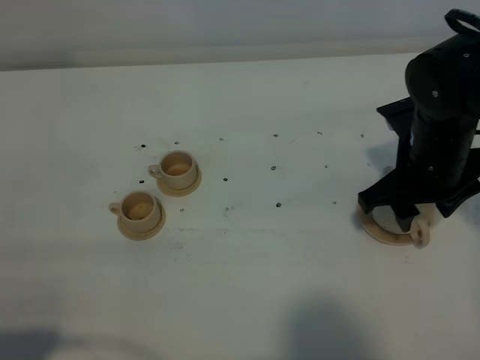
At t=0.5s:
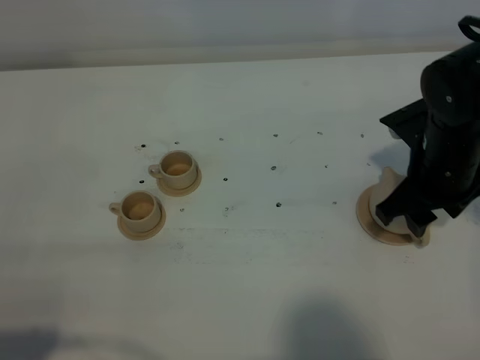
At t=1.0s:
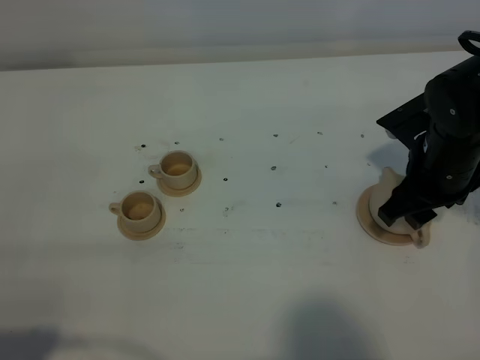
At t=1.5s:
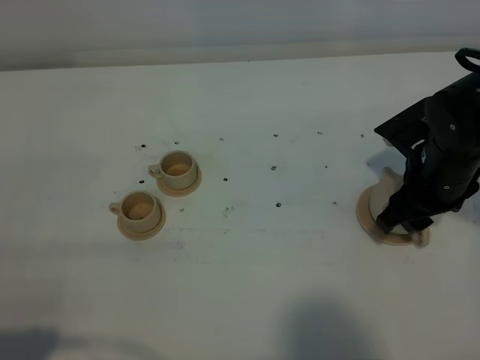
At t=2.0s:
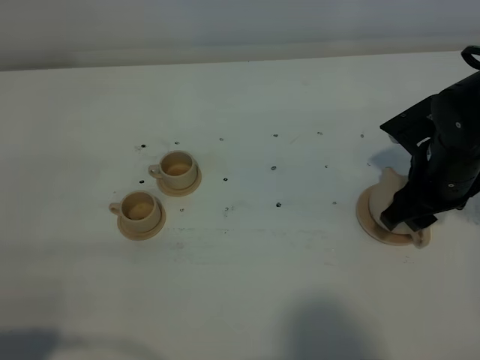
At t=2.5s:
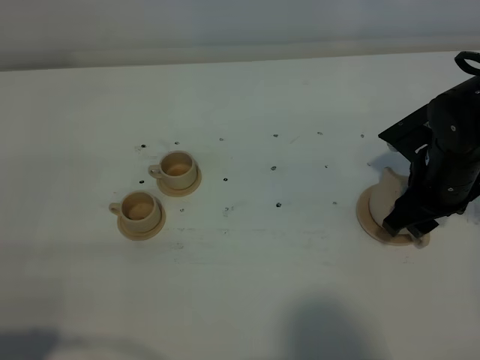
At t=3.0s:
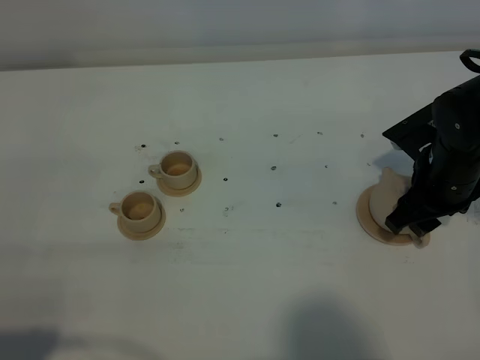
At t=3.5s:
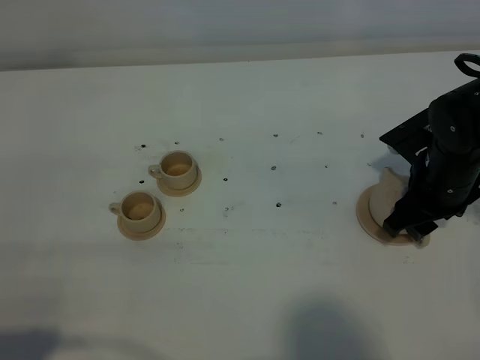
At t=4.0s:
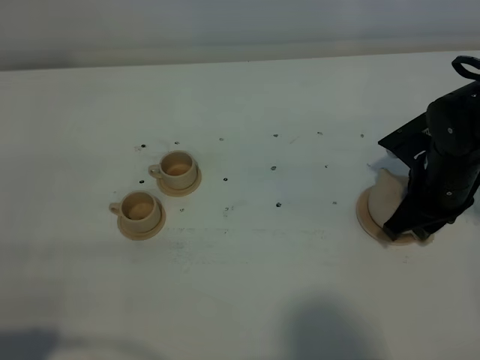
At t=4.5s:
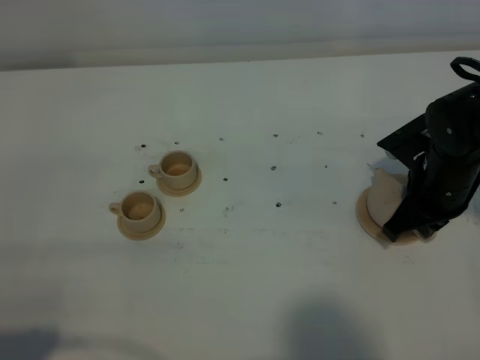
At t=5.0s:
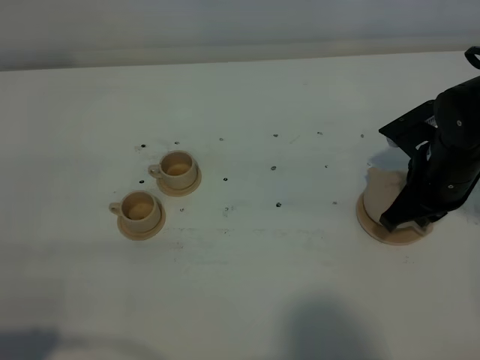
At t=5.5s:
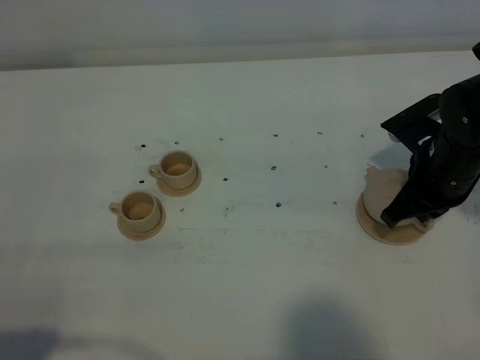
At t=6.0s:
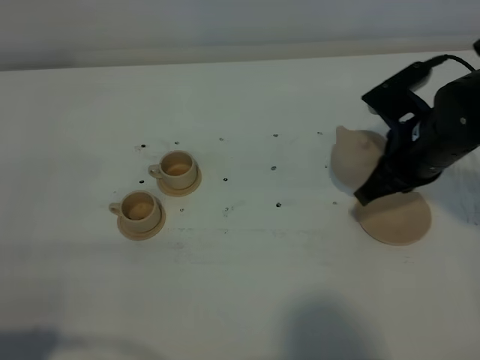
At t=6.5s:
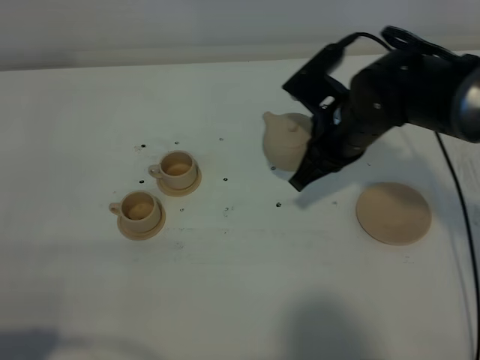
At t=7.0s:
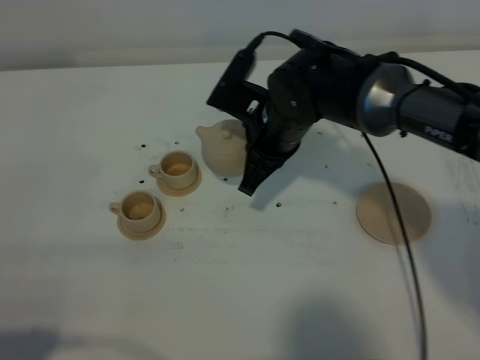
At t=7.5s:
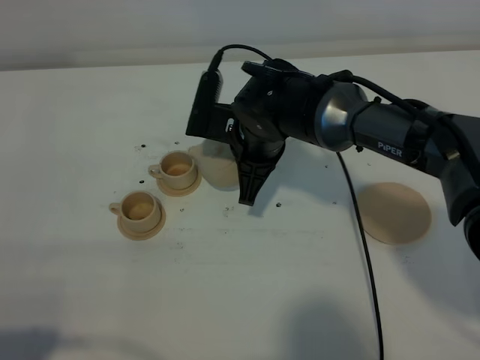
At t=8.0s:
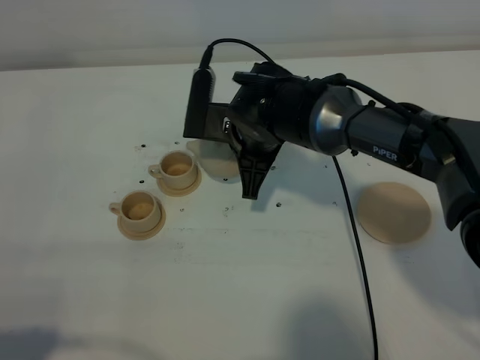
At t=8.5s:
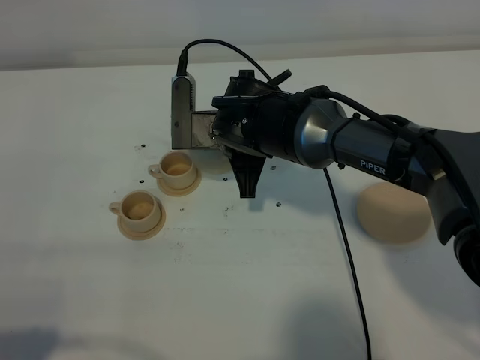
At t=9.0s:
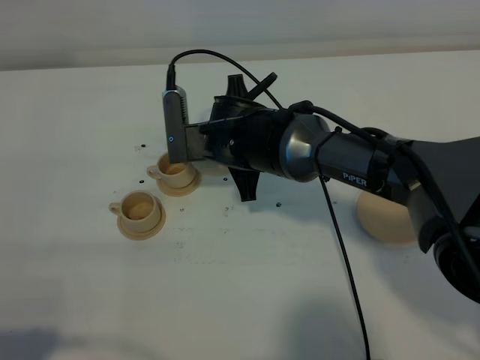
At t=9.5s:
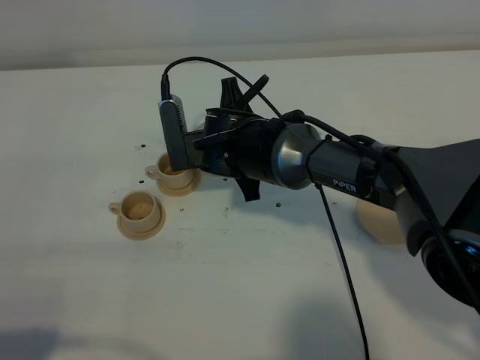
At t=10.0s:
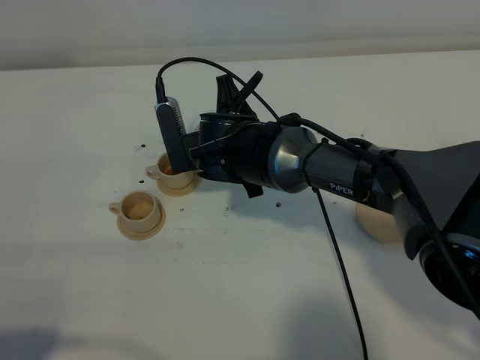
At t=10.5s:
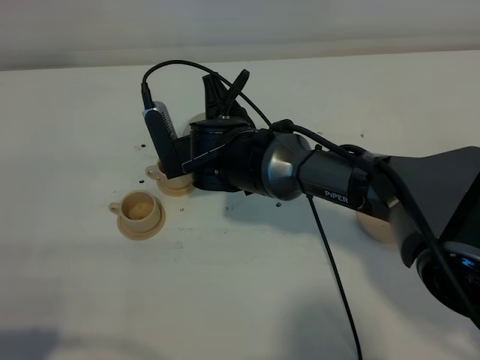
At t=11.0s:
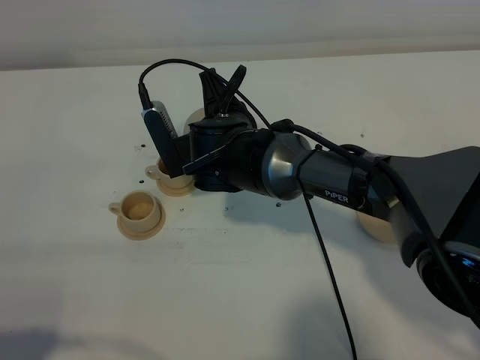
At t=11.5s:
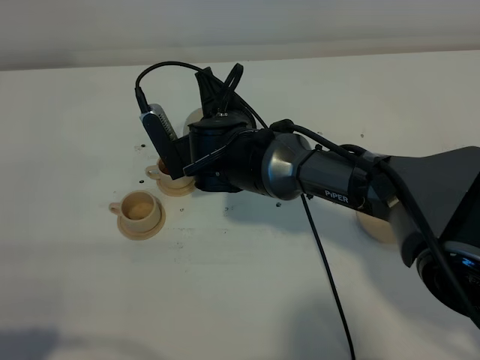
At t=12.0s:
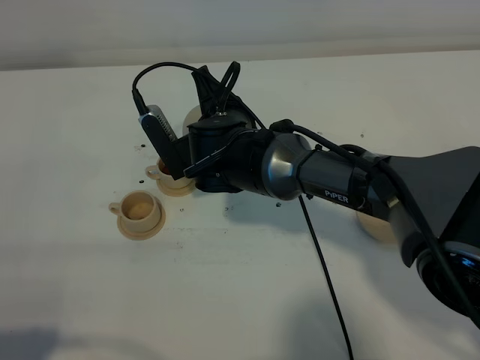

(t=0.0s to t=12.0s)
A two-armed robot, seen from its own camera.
Task of the whole recording: grasp the brown teapot and pour the tea into the two brown teacups one by one, put the brown teapot back in its original place.
Step, t=0.0s - t=5.5s: Pick up the teapot with the right gripper.
t=0.0s - t=2.0s: The grippers make only small movements.
t=2.0s - t=4.0s: The right gripper closes.
t=4.0s - t=6.0s: The right gripper goes approximately 5 cm upward, and closes.
t=6.0s - t=8.0s: The right gripper goes roughly 20 cm to the left.
t=10.0s - t=12.0s: The grippers make only small movements.

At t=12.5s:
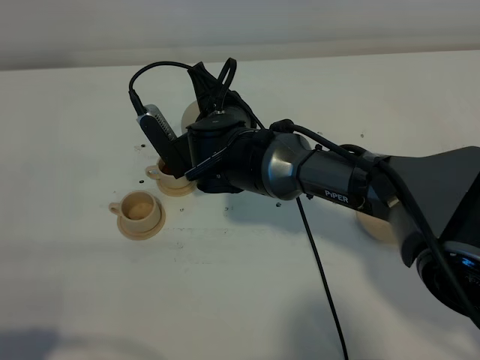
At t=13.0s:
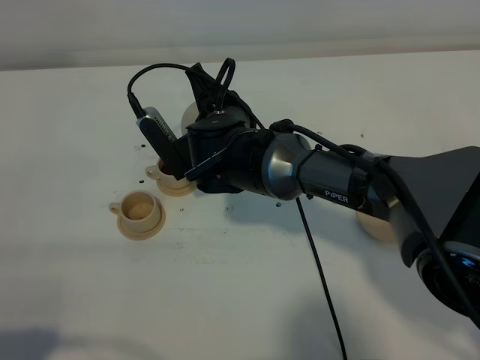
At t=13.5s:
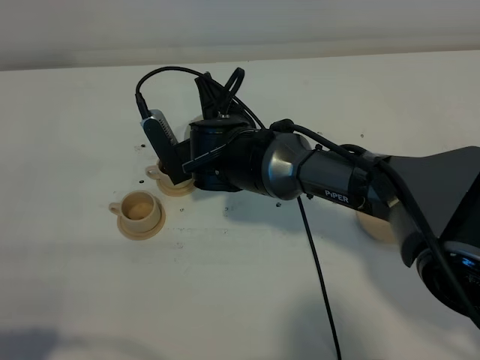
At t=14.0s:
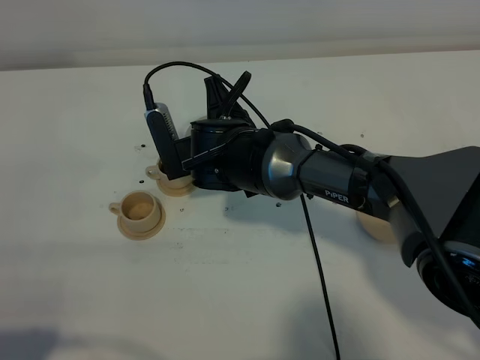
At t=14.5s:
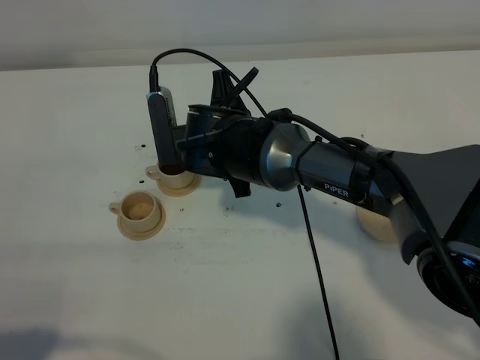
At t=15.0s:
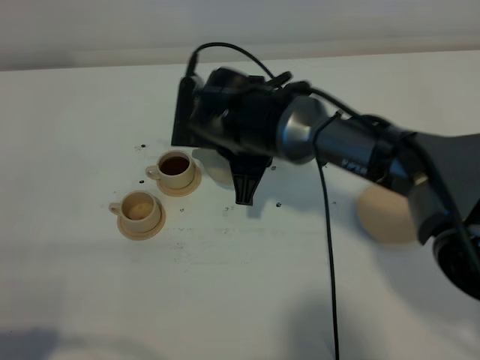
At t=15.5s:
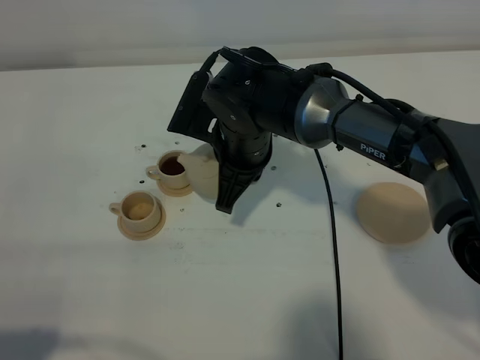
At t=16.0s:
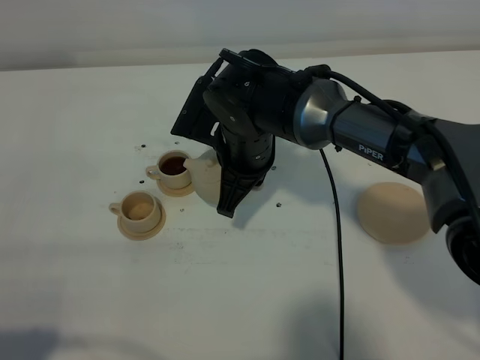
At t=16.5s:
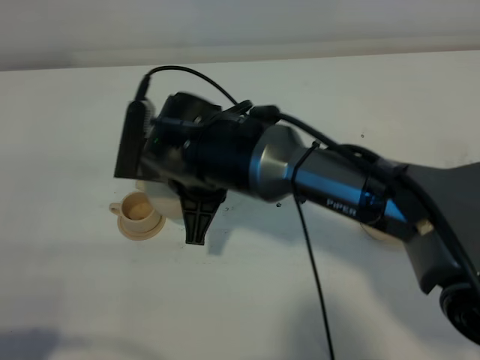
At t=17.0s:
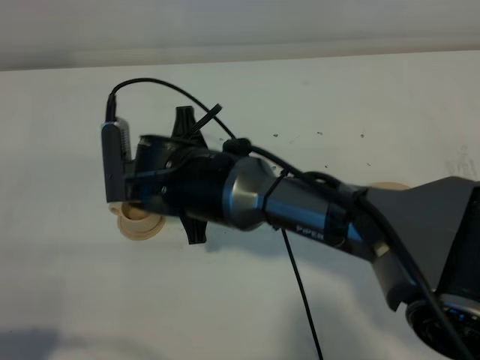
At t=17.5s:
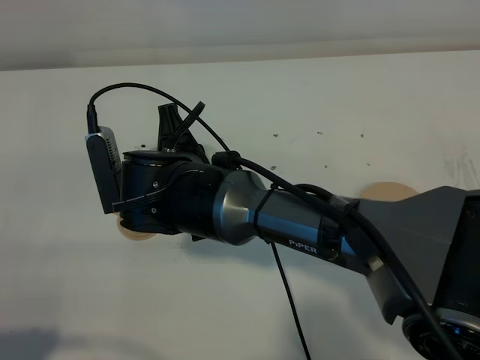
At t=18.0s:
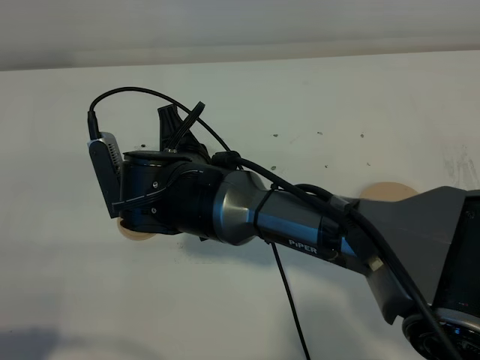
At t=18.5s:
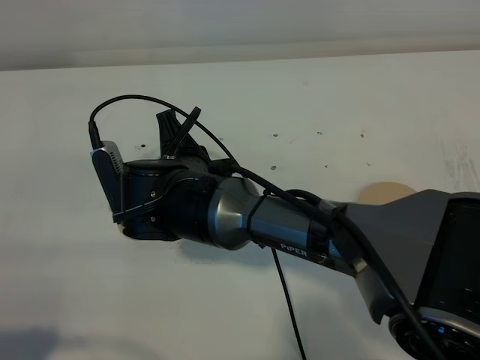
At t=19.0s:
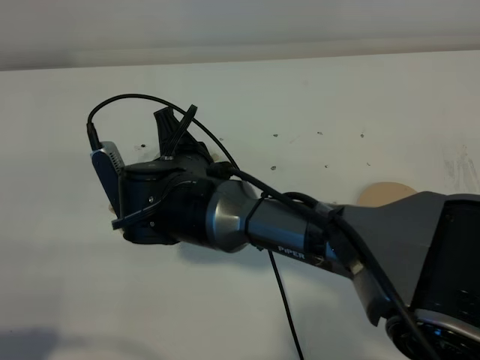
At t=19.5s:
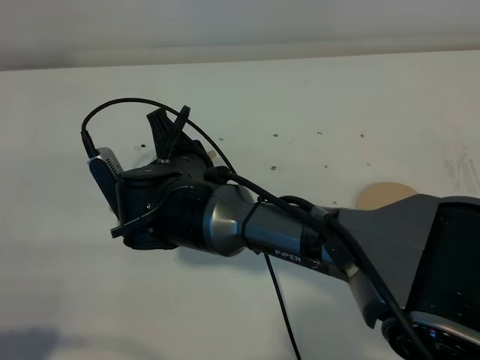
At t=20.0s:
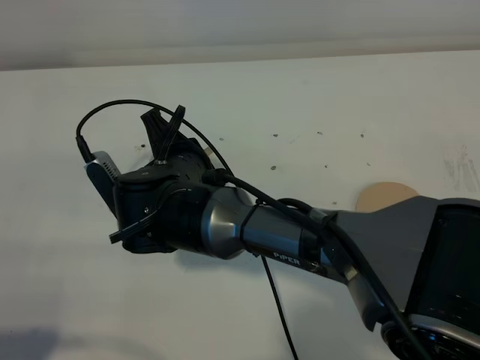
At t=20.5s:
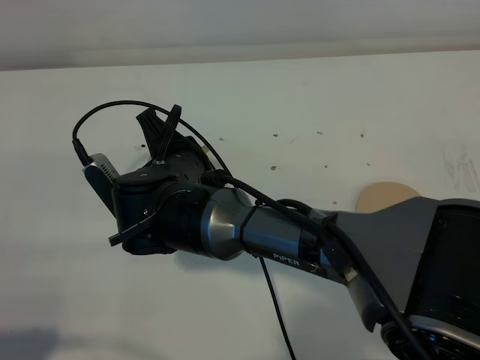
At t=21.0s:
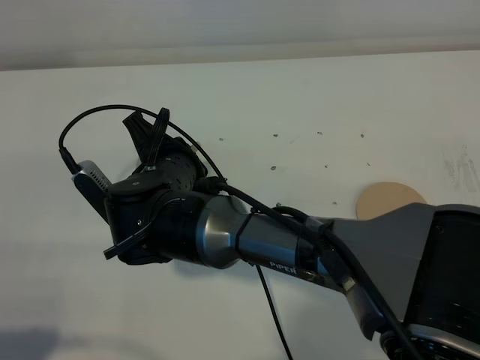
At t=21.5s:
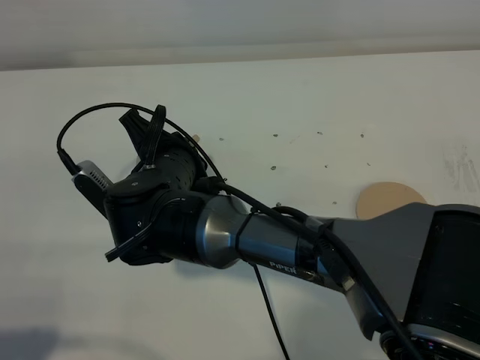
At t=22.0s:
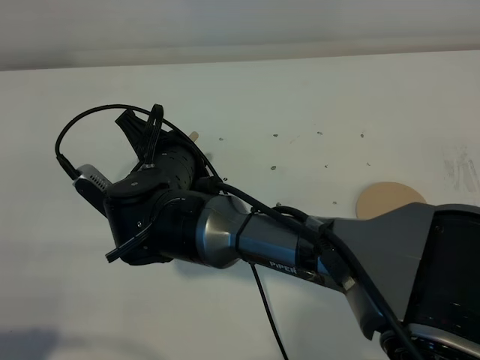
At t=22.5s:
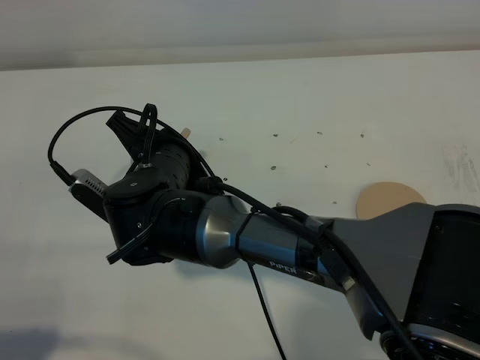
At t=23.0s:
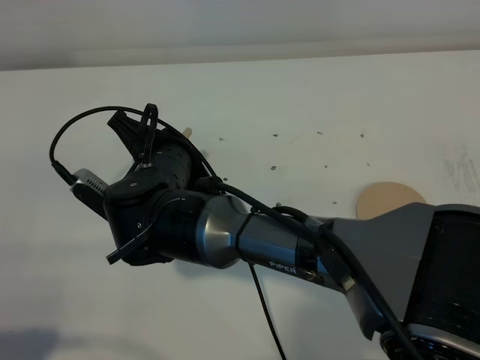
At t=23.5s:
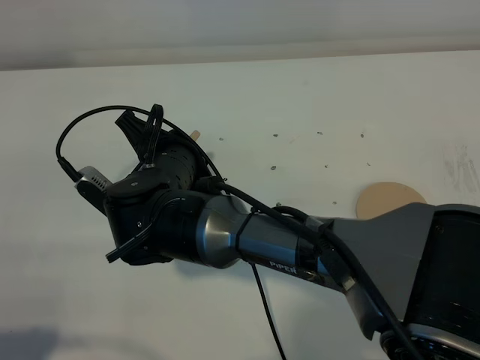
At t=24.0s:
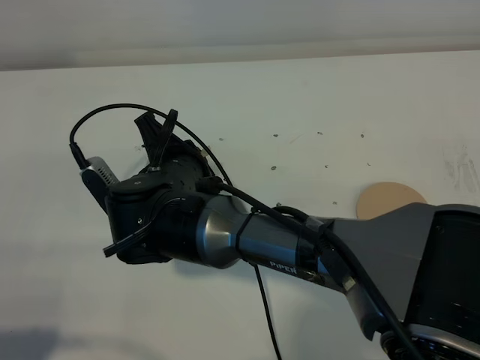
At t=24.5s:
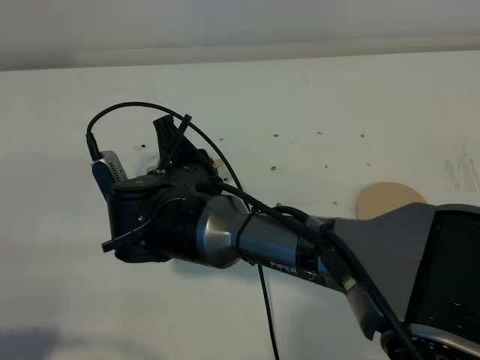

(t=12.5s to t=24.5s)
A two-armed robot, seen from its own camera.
Task of the whole recording: grasp the brown teapot and pour the tea into the two brown teacups one by one, put the brown teapot back in its original place.
Step, t=14.5s - t=24.0s: Pour tea into the teacup with the right gripper.
t=14.5s - t=16.5s: The right gripper shifts some 5 cm backward.
t=18.5s - t=20.5s: The grippers make only small movements.
t=20.5s - t=22.5s: The grippers move only a little.

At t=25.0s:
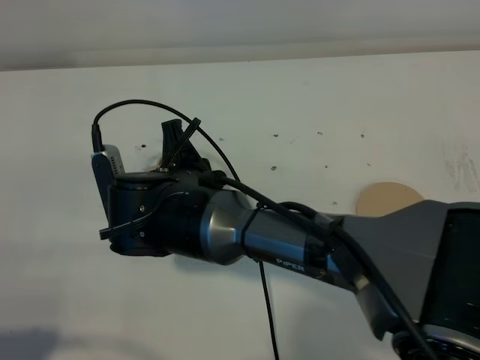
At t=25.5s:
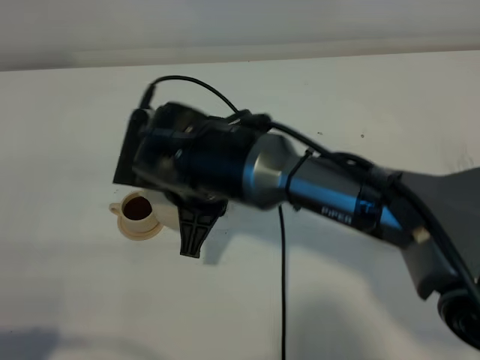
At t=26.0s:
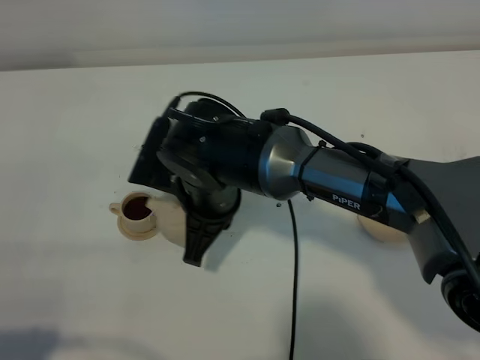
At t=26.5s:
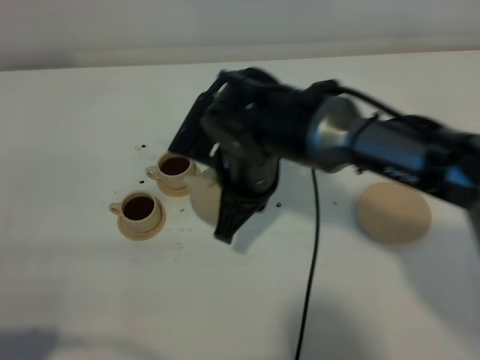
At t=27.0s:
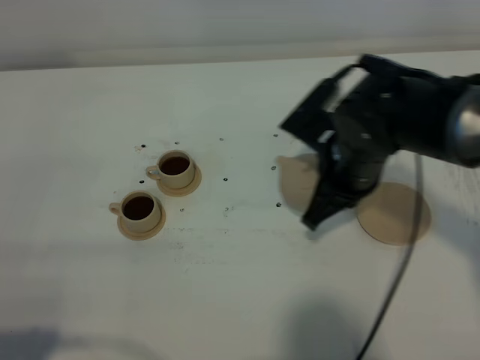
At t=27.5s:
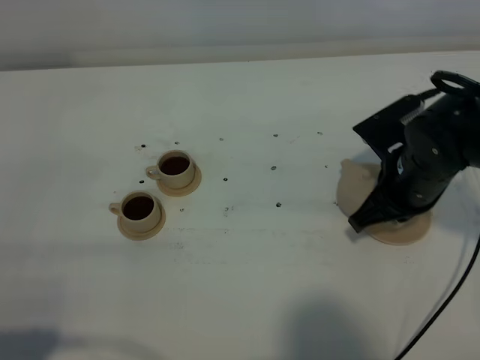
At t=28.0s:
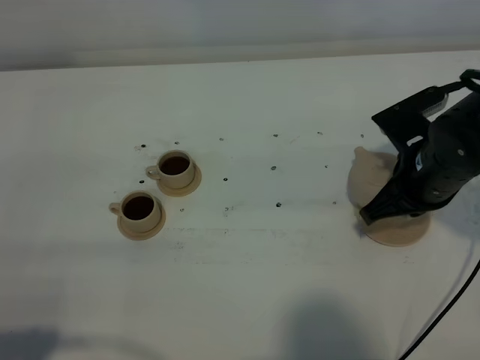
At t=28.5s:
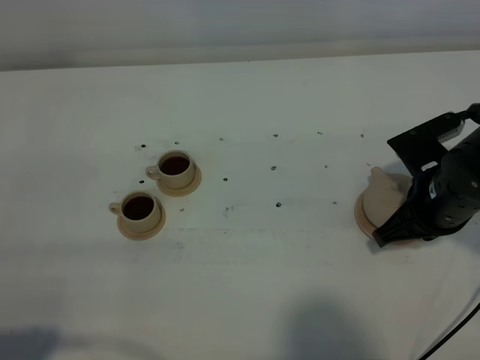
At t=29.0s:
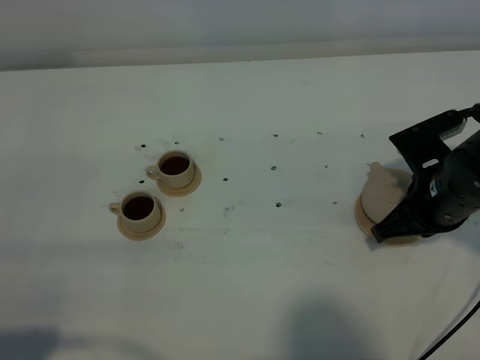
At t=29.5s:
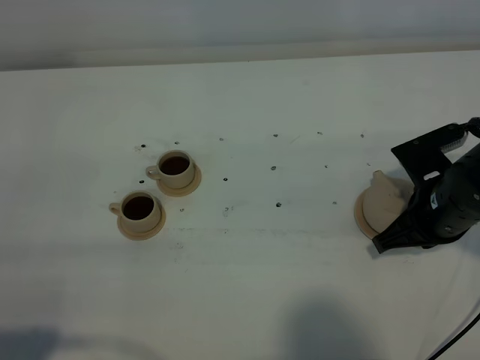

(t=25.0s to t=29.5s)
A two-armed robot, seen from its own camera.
Task of the whole recording: grasp the brown teapot and pour the tea into the two brown teacups one by one, put the brown teapot back in its original place.
t=25.0s - t=27.0s: The right gripper shifts about 20 cm to the right.
t=27.0s - t=29.5s: The right gripper goes about 10 cm to the right.
